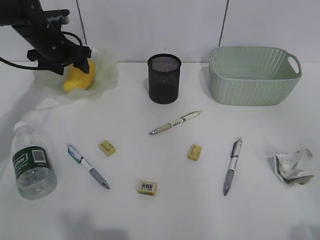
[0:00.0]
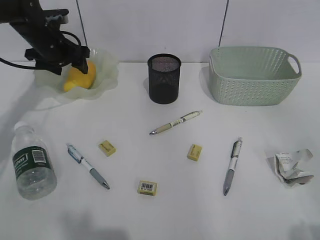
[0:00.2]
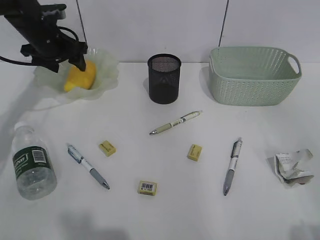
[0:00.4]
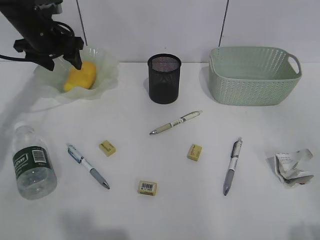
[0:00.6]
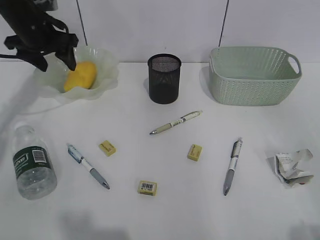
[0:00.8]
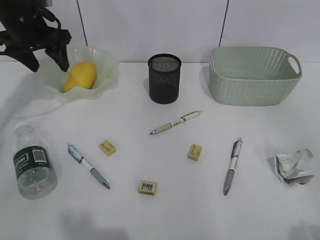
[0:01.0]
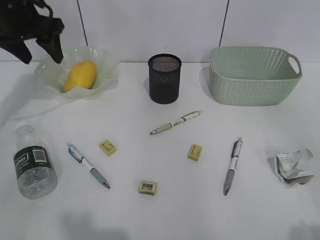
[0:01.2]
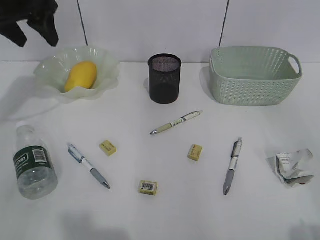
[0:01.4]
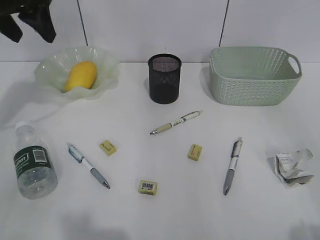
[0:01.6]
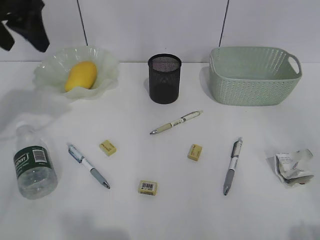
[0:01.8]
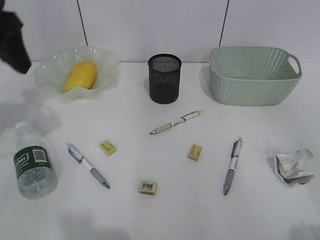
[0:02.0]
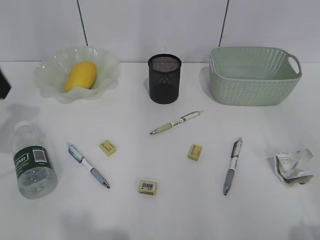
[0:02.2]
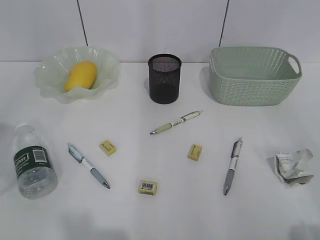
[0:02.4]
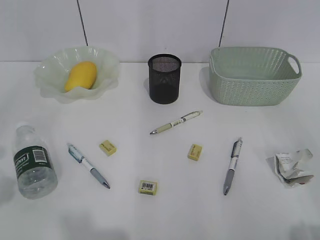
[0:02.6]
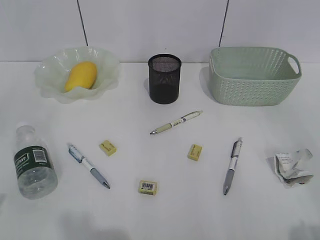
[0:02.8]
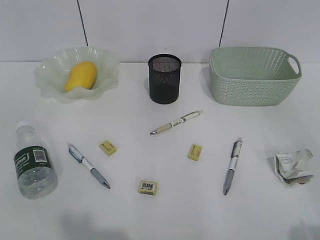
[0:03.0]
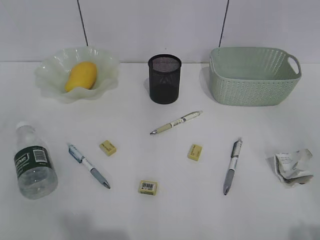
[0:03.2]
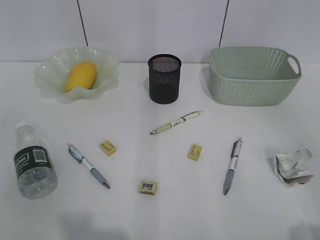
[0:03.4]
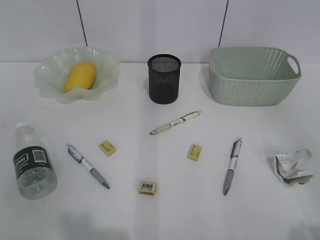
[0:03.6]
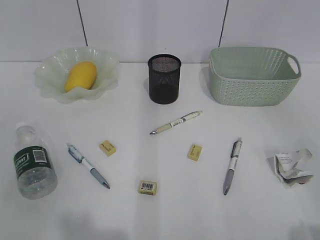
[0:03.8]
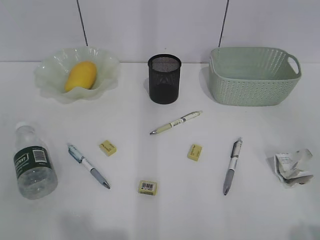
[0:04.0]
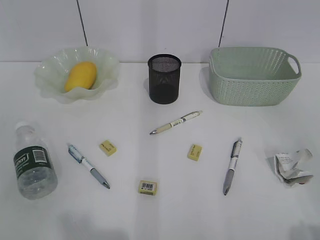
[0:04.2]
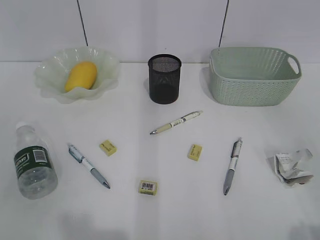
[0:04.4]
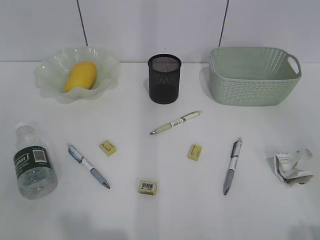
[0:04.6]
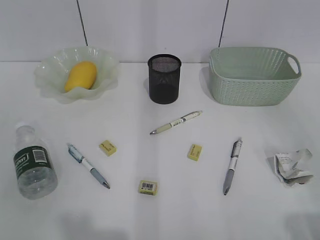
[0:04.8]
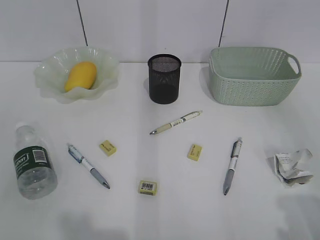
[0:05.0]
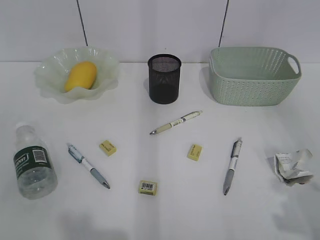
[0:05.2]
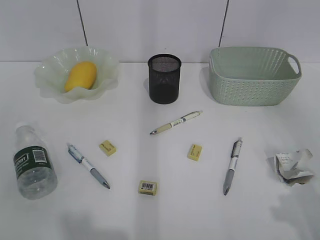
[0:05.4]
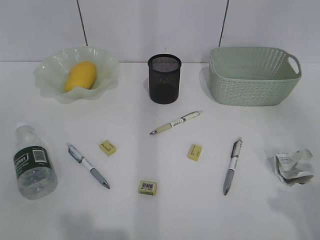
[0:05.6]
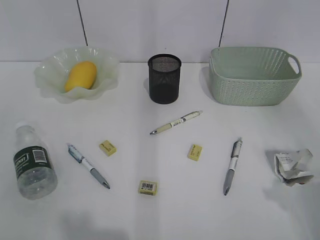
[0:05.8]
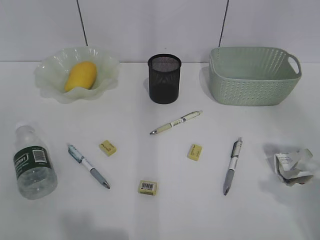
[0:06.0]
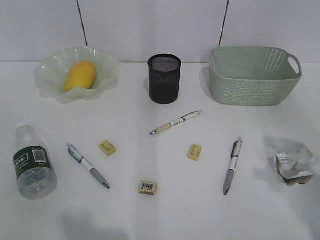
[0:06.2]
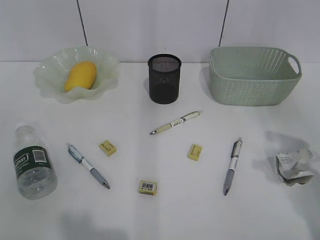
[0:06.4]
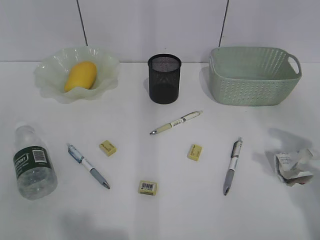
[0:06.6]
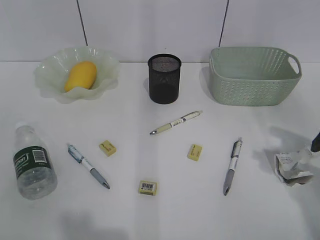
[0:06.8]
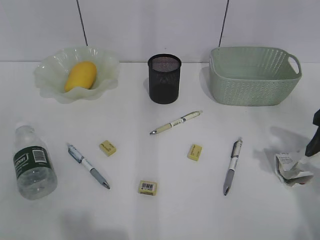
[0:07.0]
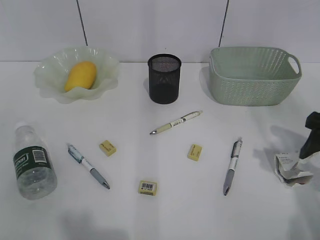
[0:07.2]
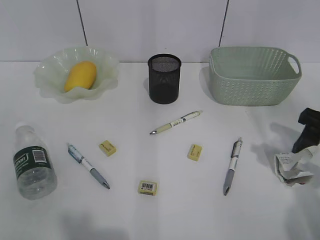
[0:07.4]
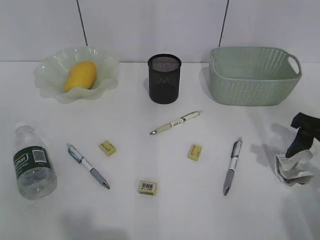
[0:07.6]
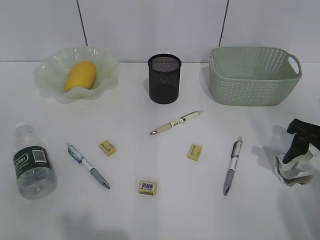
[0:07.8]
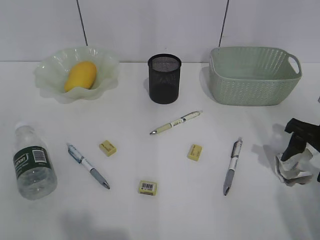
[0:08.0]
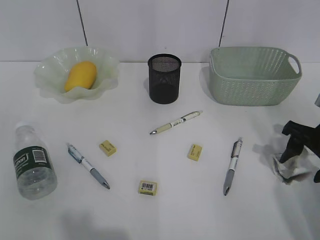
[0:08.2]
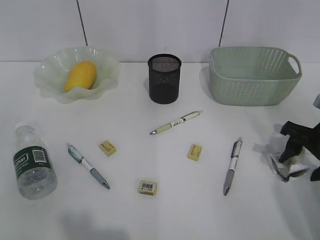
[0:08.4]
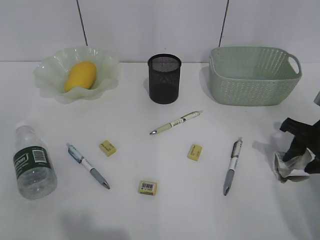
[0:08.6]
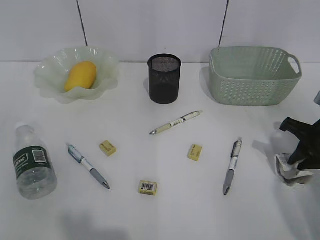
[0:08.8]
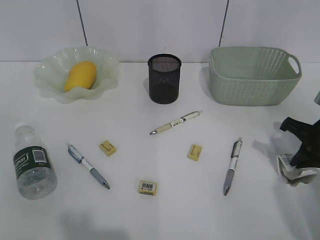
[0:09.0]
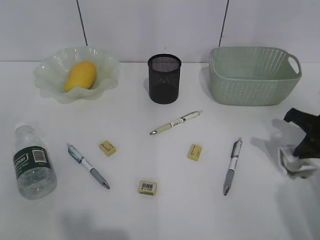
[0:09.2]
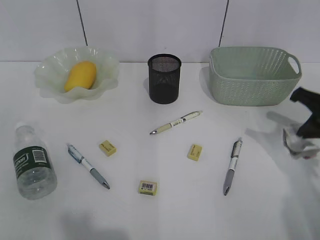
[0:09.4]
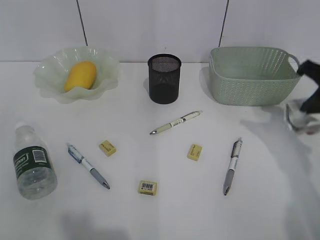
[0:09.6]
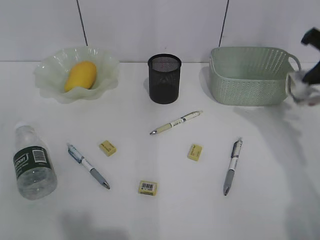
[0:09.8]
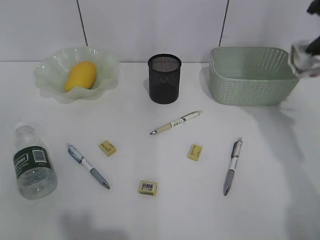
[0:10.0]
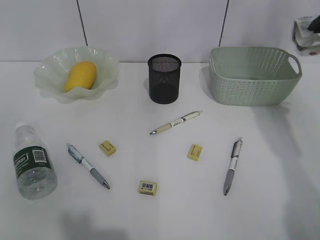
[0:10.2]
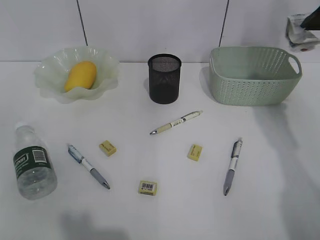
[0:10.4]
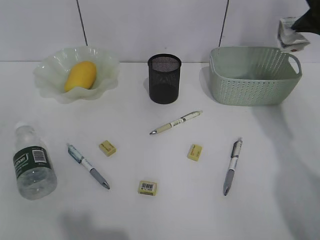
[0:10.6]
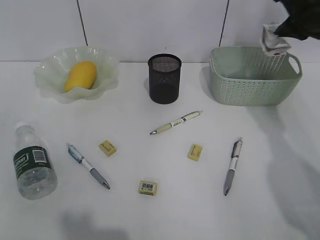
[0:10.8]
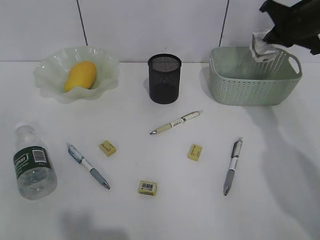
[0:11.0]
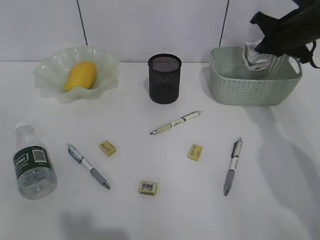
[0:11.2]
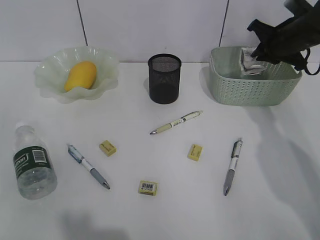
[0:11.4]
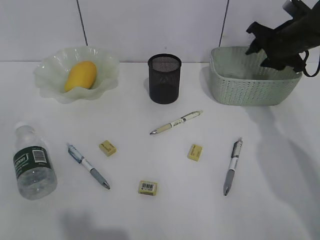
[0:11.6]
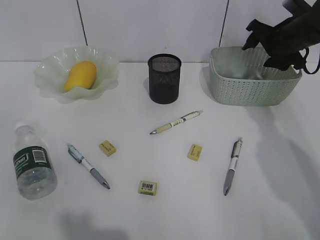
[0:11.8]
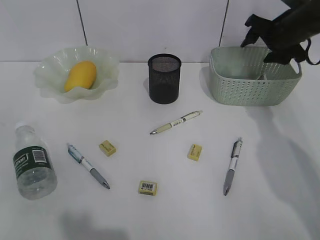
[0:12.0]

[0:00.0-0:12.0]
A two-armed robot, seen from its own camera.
Step, 0:00.4 to 0:09.0: Grasp the waste paper with right gripper.
Step, 0:09.2 to 0:11.8: Place the waste paper in the basket with right gripper.
0:00.0 to 0:01.6: The left gripper goes approximately 20 cm upward and backward.
0:01.6 to 0:03.0: The left gripper moves backward, approximately 30 cm.
0:04.4 to 0:06.0: The right gripper goes approximately 15 cm forward.
0:06.0 to 0:07.6: The right gripper goes some 15 cm downward and forward.
0:07.6 to 0:09.0: The right gripper closes its fingers.
0:09.0 to 0:10.4: The right gripper travels upward and forward by some 20 cm.
0:10.4 to 0:12.0: The right gripper heads forward and downward, covering roughly 15 cm, and opens its fingers.

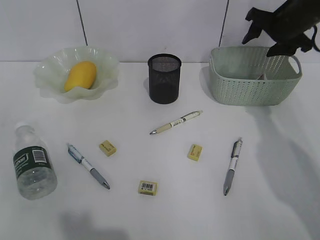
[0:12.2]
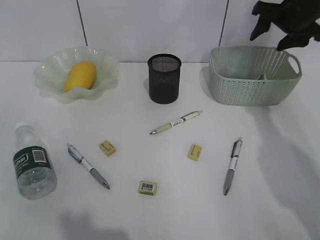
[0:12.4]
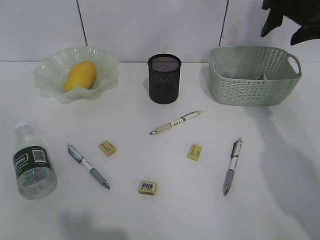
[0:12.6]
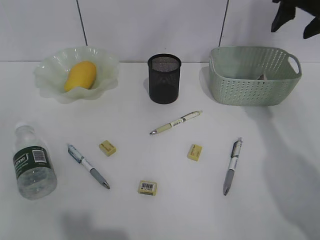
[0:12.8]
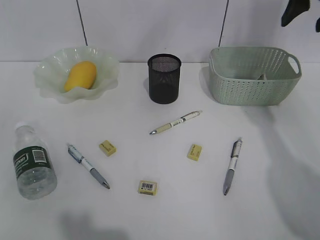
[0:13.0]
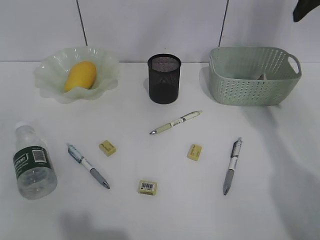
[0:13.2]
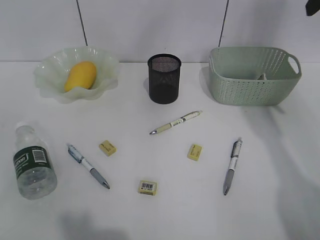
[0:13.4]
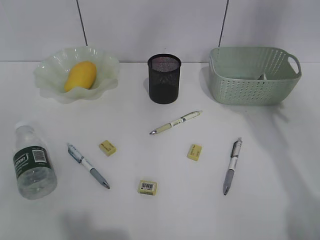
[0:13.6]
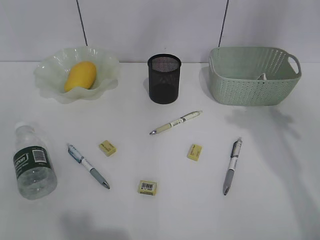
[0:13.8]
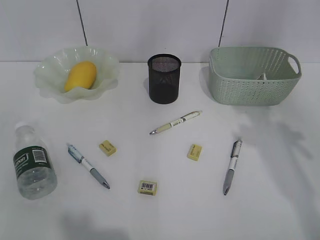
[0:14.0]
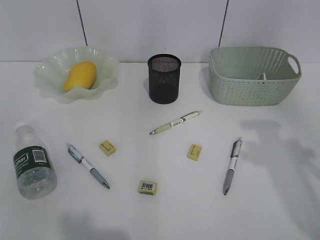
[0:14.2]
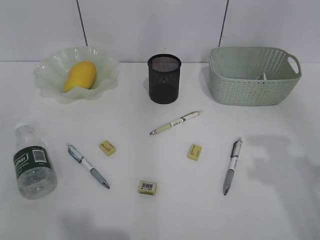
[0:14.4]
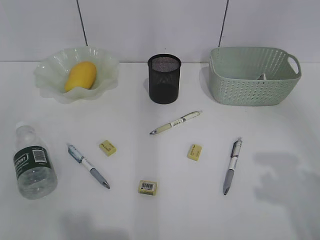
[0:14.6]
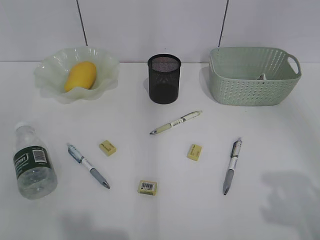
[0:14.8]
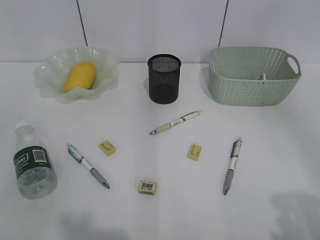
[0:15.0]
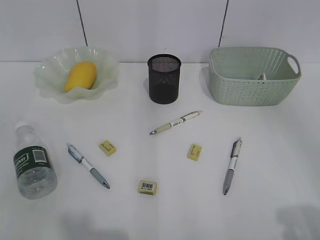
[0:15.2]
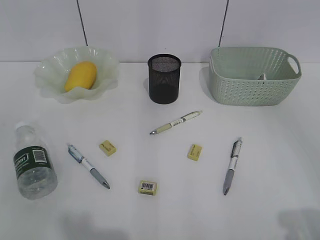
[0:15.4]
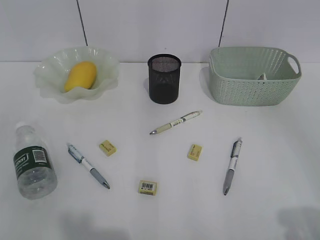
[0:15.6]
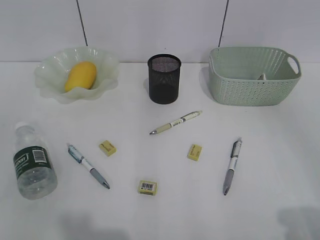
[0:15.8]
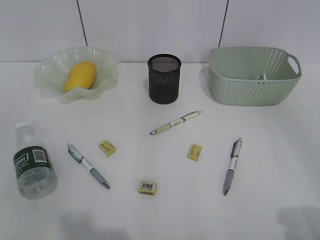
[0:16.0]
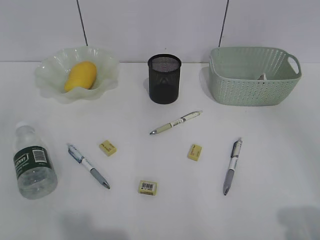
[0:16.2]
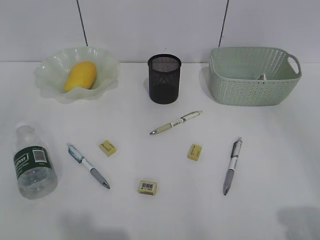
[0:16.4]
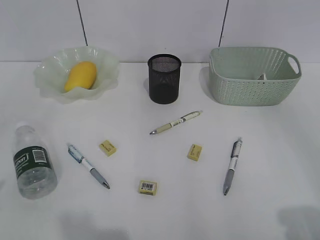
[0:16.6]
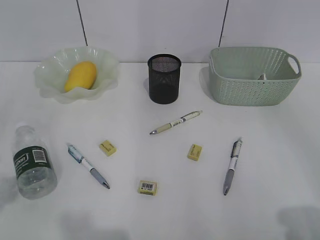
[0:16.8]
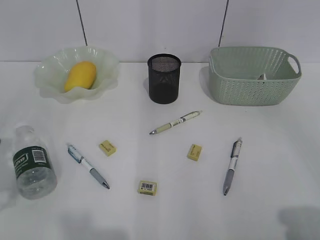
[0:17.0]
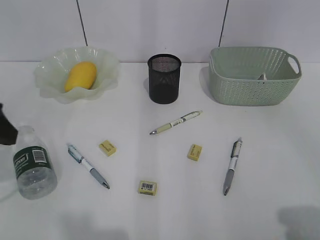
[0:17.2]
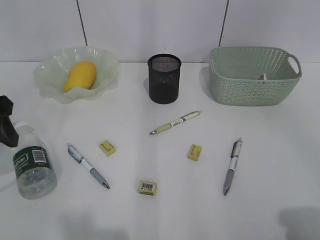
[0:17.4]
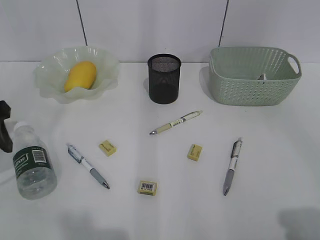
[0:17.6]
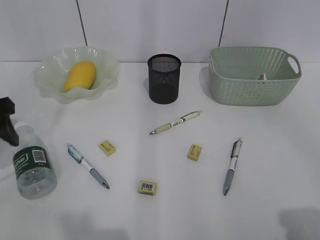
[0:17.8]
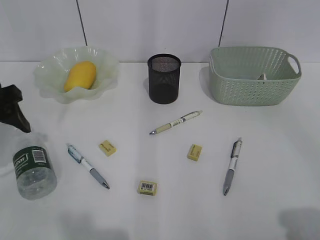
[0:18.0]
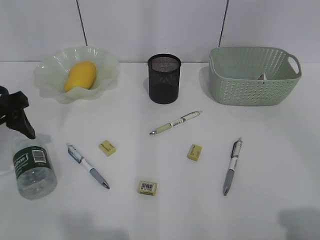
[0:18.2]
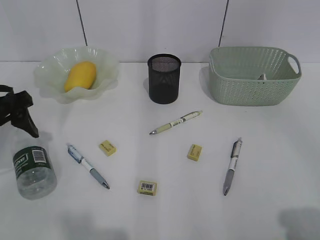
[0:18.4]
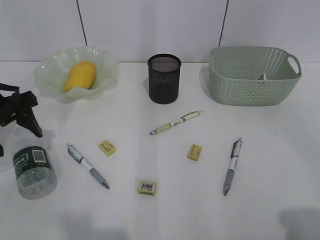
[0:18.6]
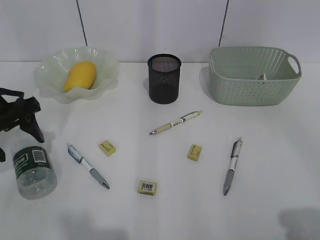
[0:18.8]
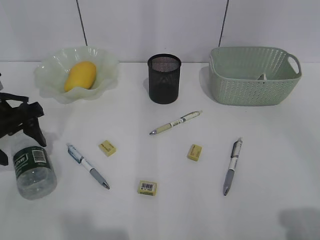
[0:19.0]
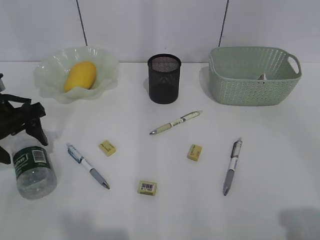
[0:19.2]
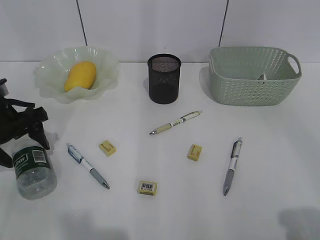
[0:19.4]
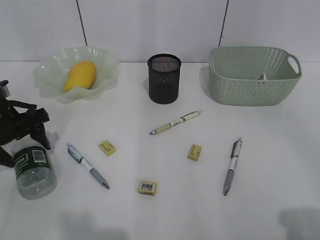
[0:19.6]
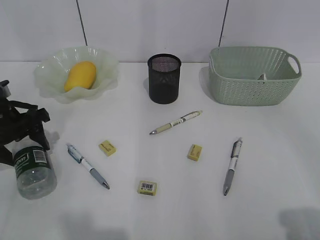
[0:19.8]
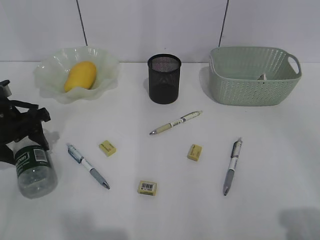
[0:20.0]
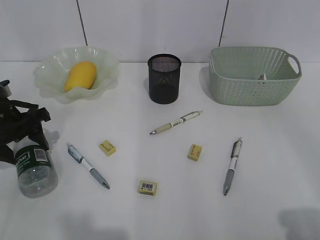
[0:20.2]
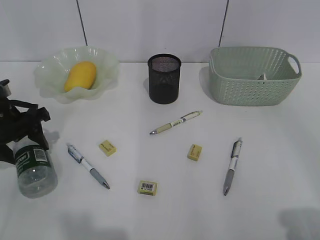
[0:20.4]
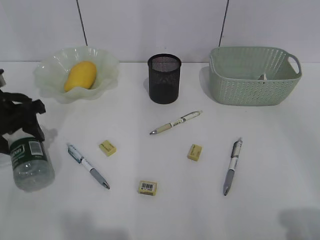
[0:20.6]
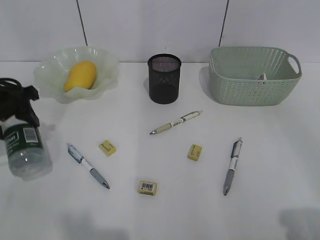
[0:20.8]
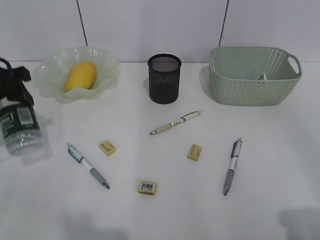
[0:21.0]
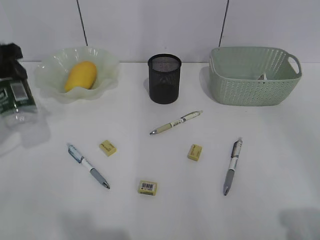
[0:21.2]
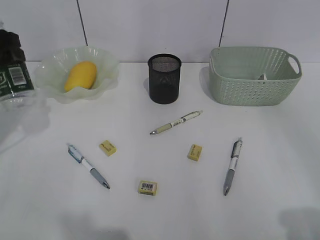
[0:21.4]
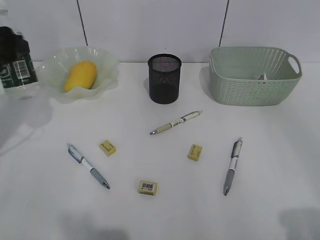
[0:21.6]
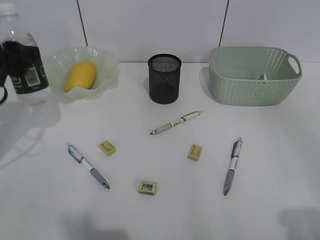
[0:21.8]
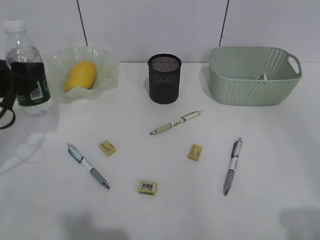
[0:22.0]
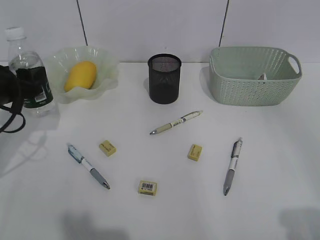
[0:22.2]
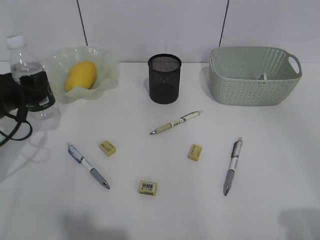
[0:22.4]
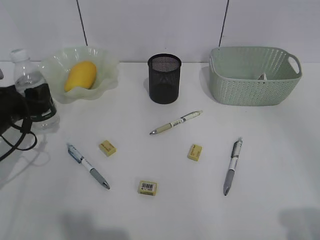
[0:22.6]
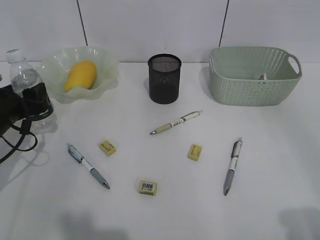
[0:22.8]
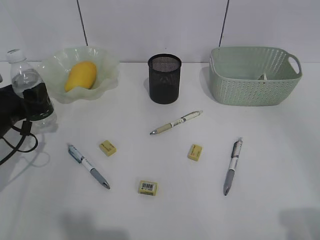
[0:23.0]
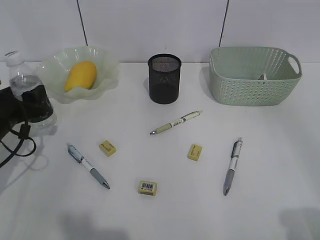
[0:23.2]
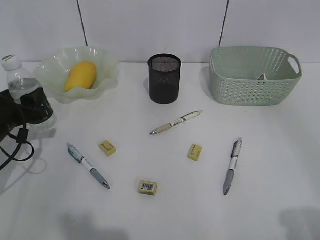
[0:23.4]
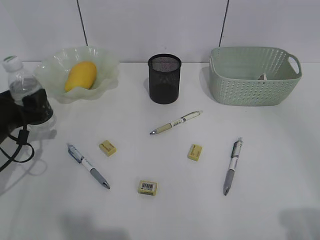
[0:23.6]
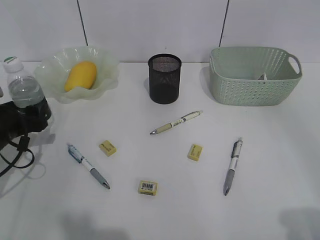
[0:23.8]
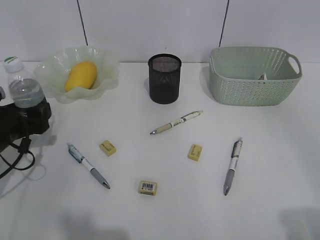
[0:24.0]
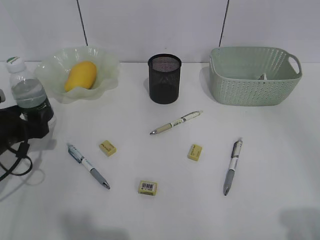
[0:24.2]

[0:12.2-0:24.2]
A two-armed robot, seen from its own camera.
Step, 0:12.2 to 0:20.2: Grasp the bottle with left gripper.
Step, 0:20.4 to 0:24.0: Stand the bottle with left gripper.
0:12.2 to 0:13.8: The right gripper moves backward and upward, about 25 cm.
0:13.8 to 0:15.2: The right gripper travels backward by some 25 cm.
0:16.6 to 0:18.2: The left gripper goes roughly 20 cm forward and downward.
0:18.2 to 0:19.8: The left gripper is displaced downward by about 5 cm.
0:19.8 to 0:21.2: The left gripper shifts approximately 10 cm upward.
0:21.2 to 0:22.6: The left gripper shifts about 15 cm downward.
0:22.6 to 0:24.2: There are only small adjustments of the grippers.
